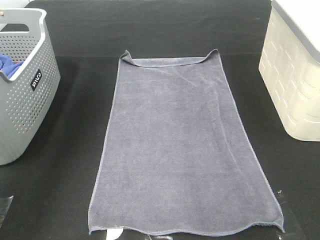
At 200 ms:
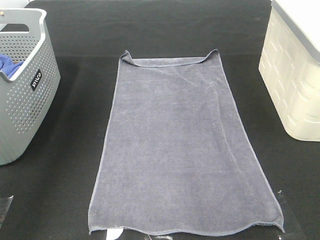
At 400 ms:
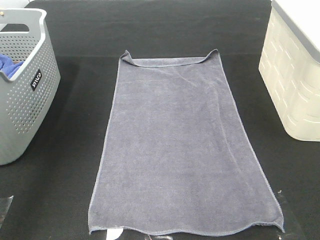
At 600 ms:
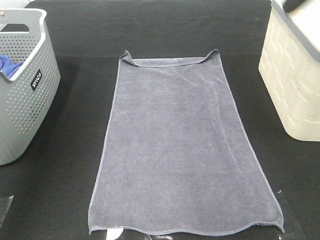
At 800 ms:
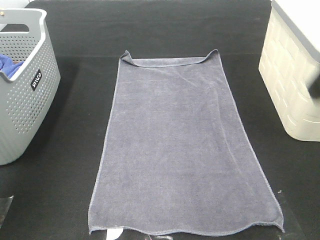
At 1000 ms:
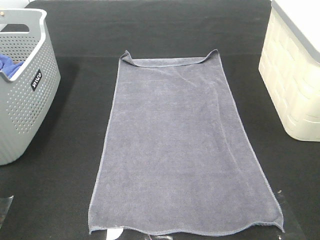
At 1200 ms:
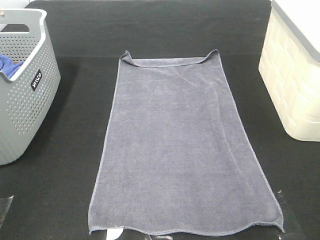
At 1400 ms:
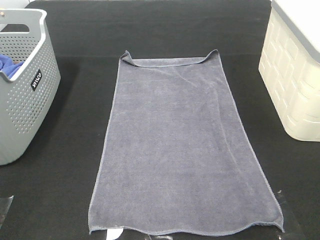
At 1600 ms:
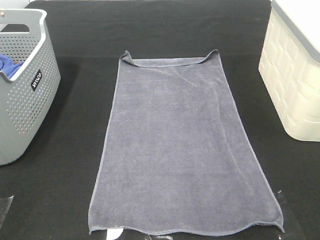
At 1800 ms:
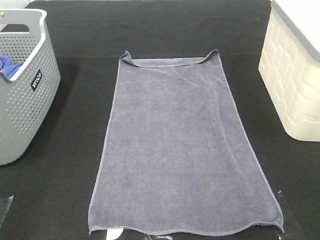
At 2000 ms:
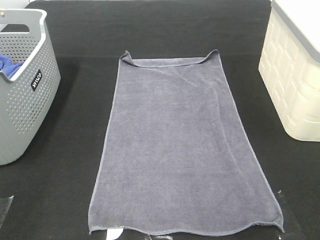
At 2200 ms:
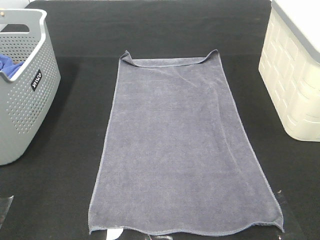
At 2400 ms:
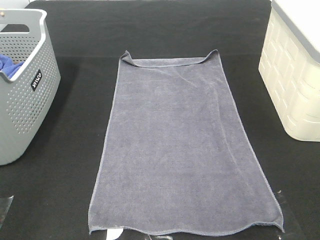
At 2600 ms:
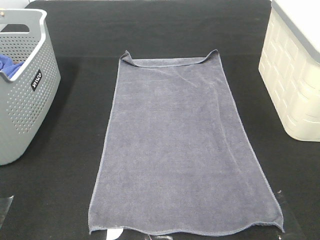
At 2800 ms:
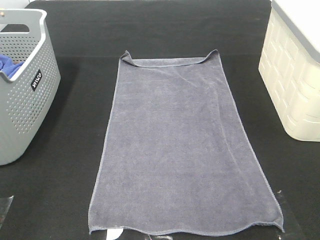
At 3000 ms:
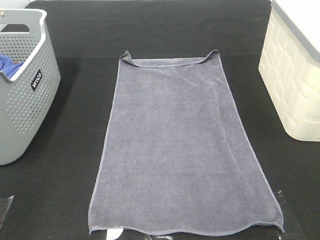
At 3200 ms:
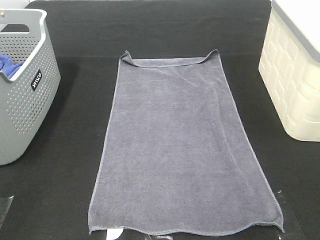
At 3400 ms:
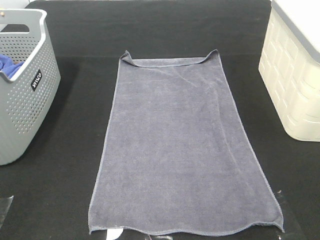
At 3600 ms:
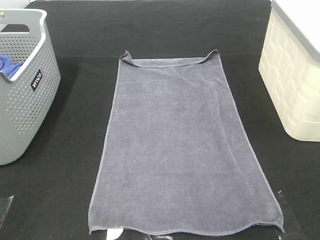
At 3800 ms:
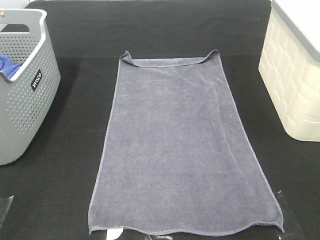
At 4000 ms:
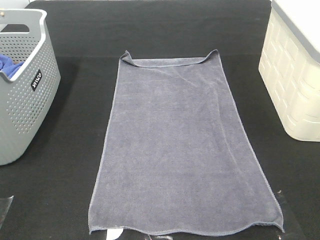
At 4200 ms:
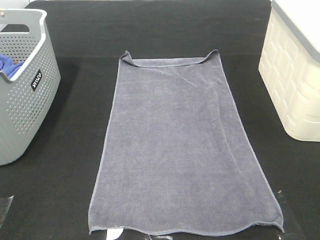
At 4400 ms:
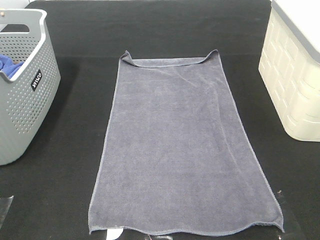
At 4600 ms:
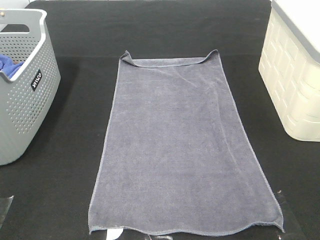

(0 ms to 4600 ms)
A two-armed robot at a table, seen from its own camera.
Task of the whole recording: Remove the towel and place it.
0 ms - 1600 ms: The grippers both shift backward by roughly 35 cm.

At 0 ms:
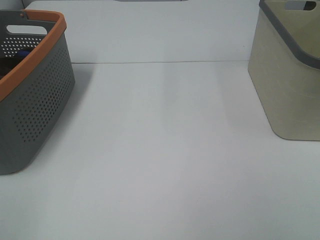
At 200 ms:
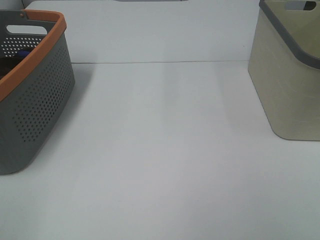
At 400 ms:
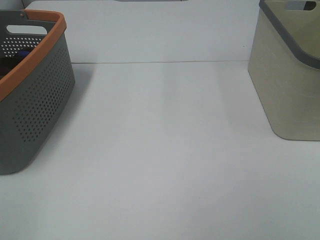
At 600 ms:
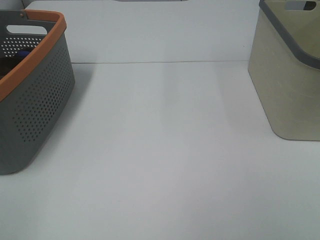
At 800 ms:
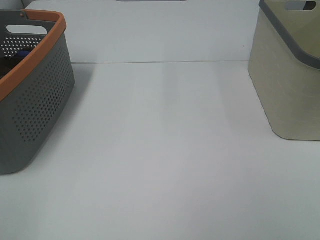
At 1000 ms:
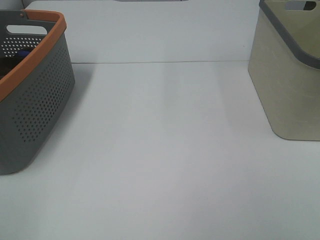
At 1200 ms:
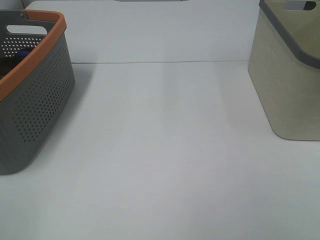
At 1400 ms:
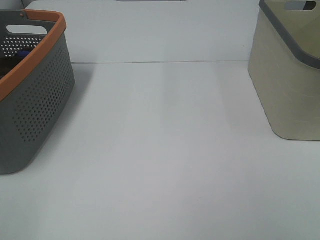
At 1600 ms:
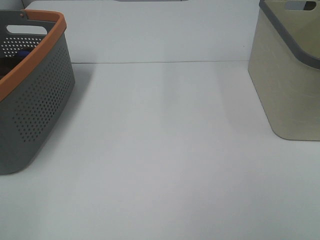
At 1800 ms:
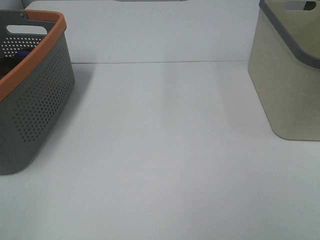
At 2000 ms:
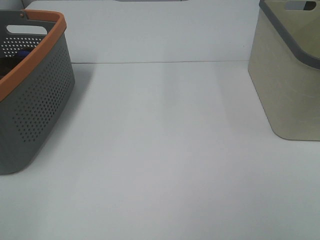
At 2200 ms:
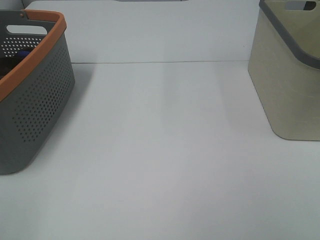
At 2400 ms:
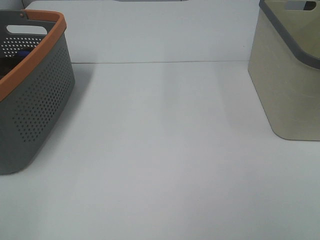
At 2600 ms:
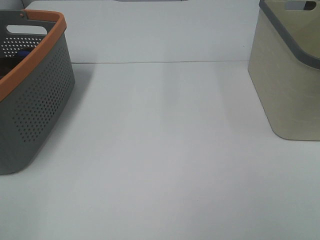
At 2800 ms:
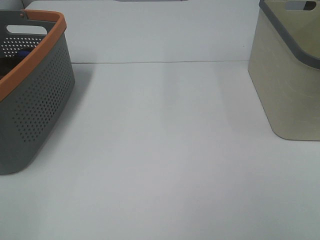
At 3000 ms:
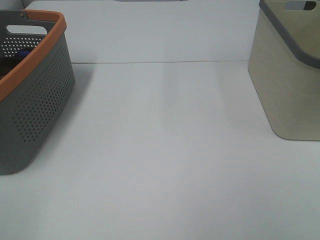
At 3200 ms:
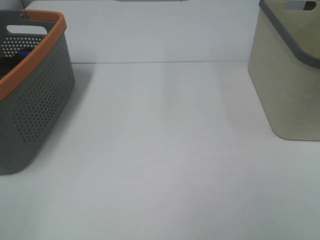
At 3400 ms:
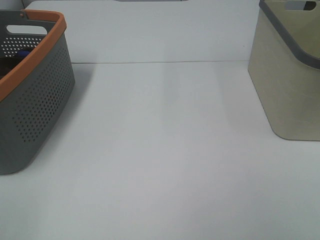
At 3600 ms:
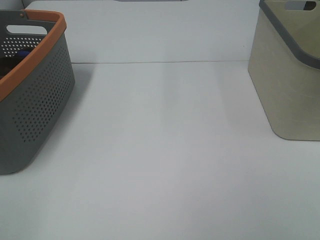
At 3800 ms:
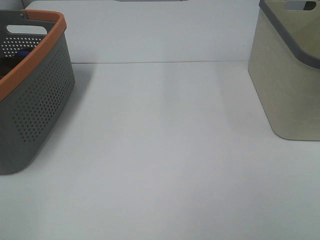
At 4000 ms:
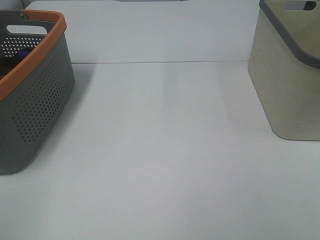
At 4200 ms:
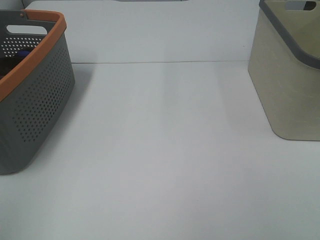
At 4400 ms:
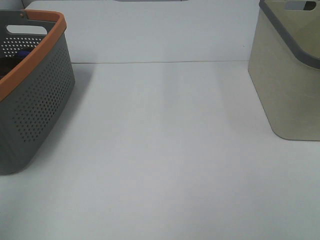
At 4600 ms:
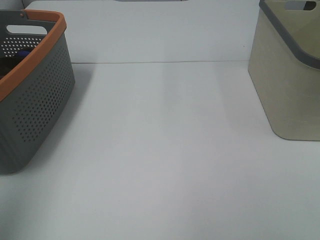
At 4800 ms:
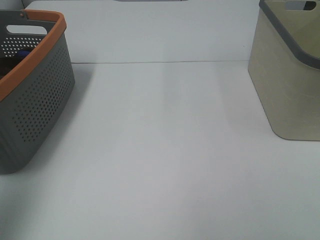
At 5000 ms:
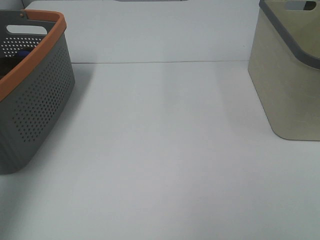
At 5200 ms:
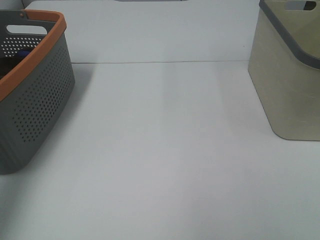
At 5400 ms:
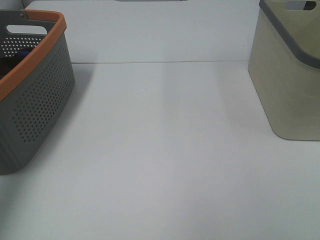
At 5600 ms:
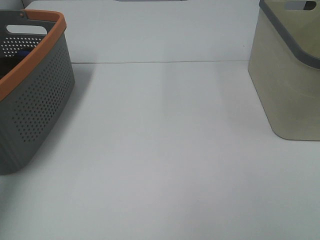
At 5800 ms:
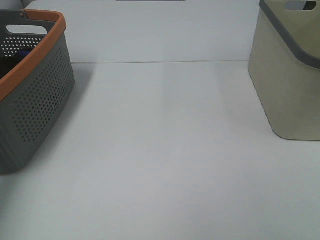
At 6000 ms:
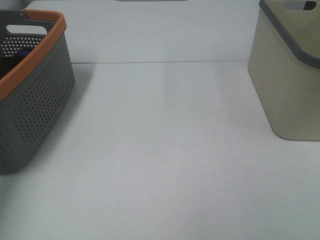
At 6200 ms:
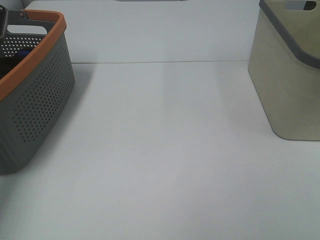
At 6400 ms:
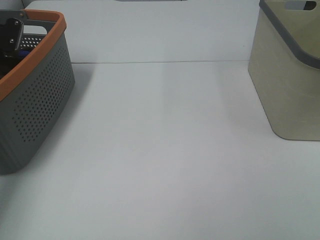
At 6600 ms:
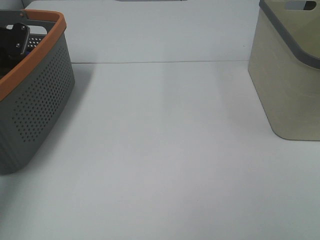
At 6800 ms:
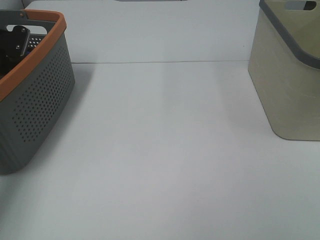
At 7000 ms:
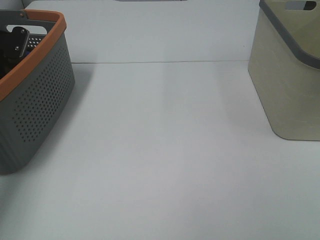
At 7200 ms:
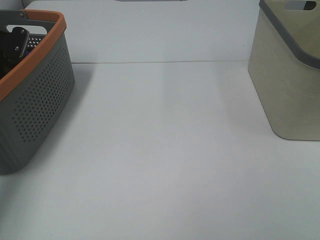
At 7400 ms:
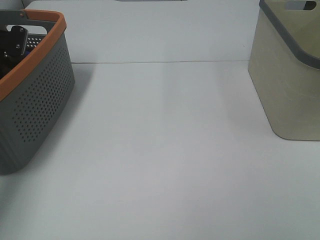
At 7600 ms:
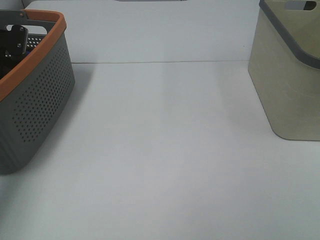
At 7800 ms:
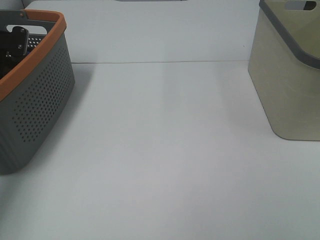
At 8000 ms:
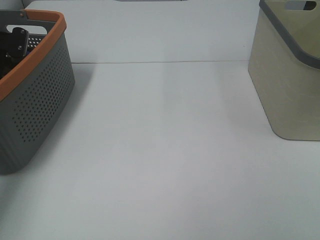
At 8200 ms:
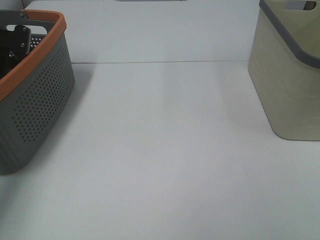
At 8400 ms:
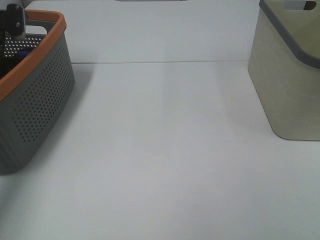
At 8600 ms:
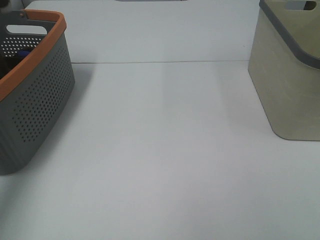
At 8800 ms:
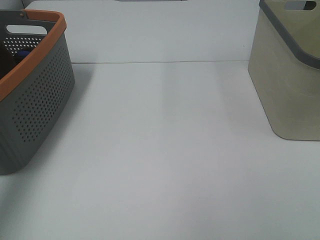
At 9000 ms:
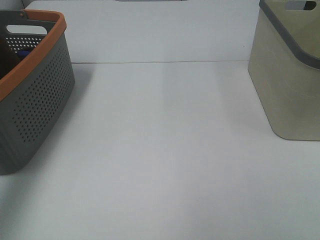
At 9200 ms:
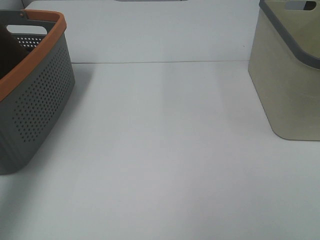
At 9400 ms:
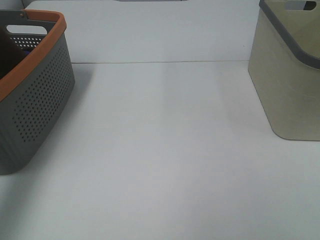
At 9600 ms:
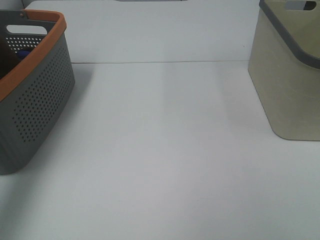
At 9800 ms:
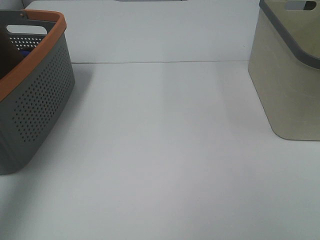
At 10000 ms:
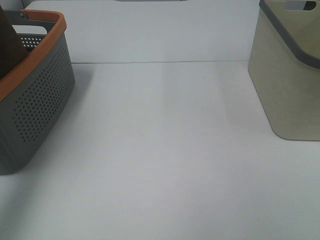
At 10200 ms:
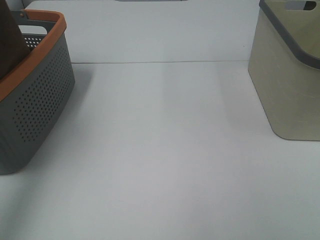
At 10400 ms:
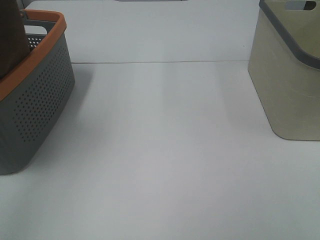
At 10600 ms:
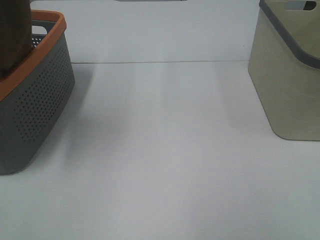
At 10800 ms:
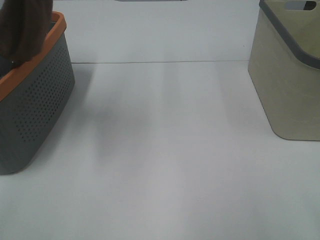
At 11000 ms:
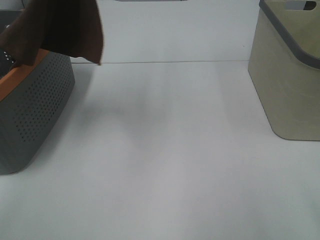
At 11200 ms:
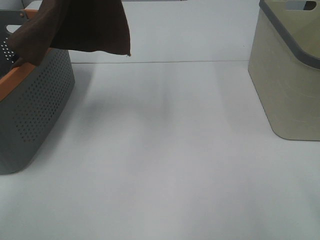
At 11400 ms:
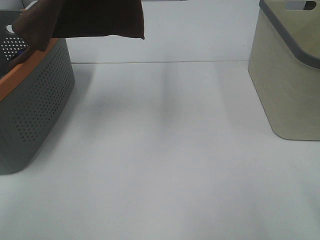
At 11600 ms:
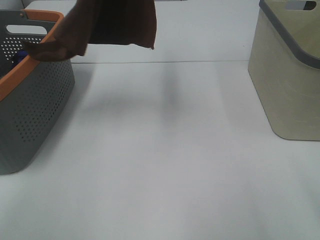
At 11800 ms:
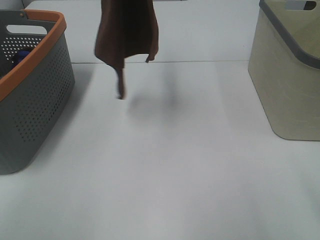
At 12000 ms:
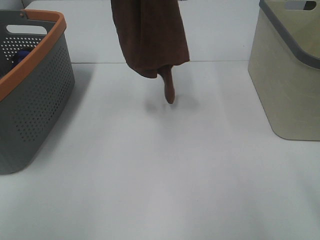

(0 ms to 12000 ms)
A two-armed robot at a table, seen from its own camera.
Task of the whole recording: Remove the towel and place it.
0 ms - 3000 ms: Neither gripper changes place.
6000 ms - 7600 ms: The left gripper travels downward by approximately 5 cm, and closes its fingers.
7600 ms - 9000 ms: The left gripper travels upward and backward by roughly 20 cm, and closes.
9000 ms - 10400 ms: The left gripper heads upward, backward and to the right, covering some 20 cm.
10400 ms - 12000 ms: The right gripper moves forward, approximately 10 cm; the left gripper goes about 20 cm to the right and forward.

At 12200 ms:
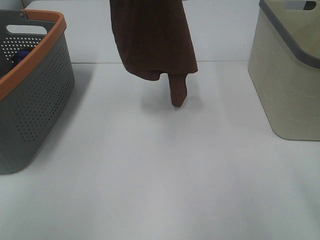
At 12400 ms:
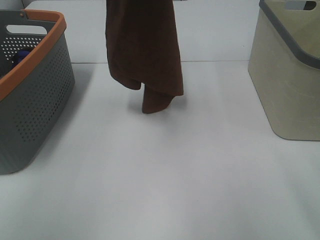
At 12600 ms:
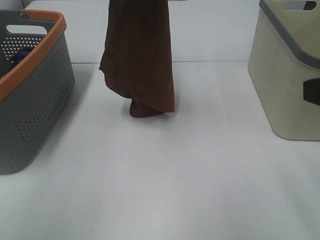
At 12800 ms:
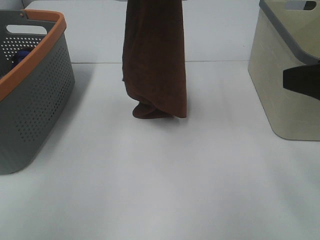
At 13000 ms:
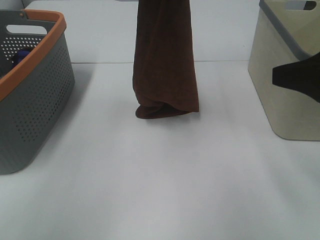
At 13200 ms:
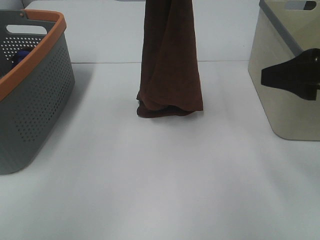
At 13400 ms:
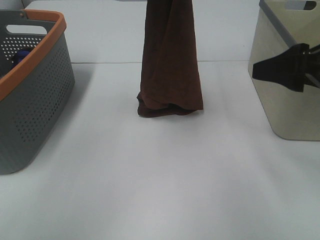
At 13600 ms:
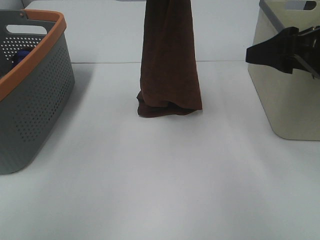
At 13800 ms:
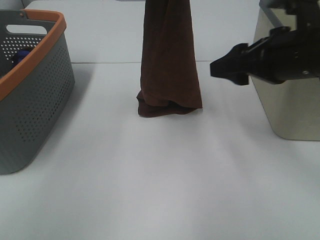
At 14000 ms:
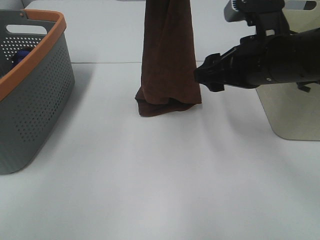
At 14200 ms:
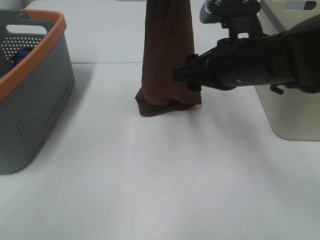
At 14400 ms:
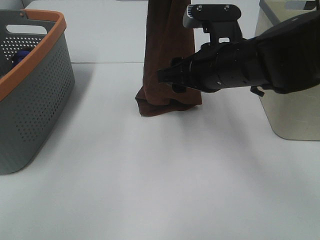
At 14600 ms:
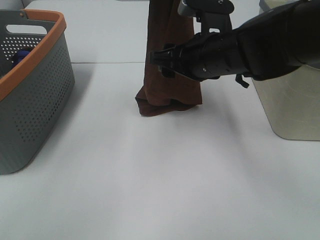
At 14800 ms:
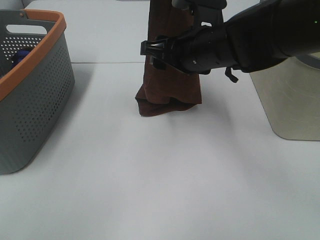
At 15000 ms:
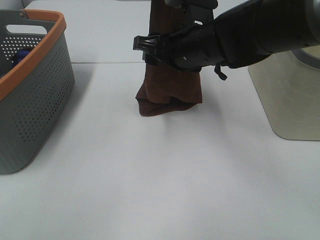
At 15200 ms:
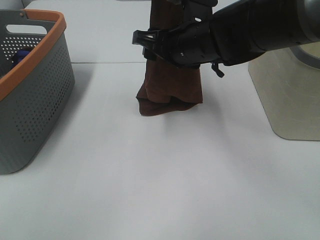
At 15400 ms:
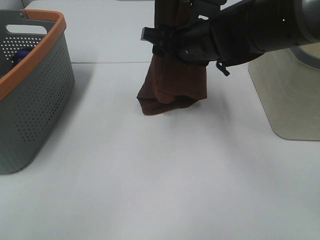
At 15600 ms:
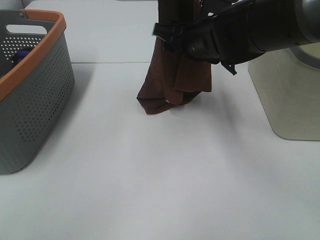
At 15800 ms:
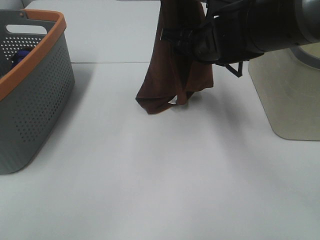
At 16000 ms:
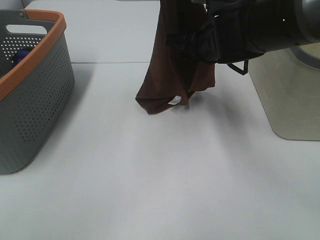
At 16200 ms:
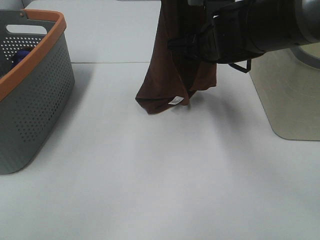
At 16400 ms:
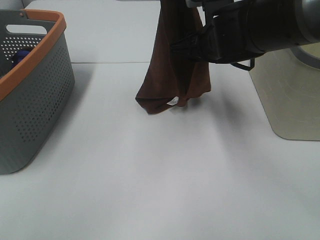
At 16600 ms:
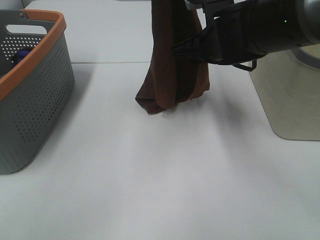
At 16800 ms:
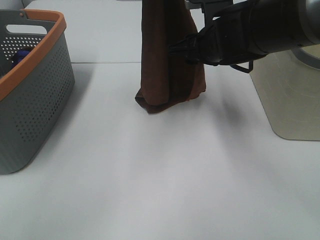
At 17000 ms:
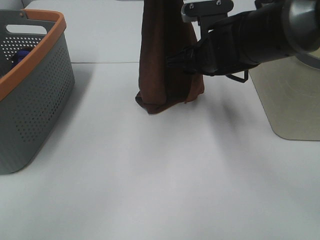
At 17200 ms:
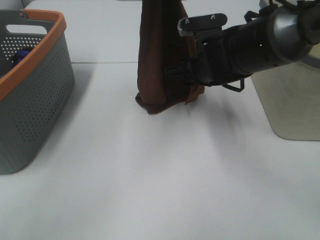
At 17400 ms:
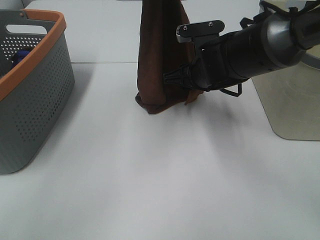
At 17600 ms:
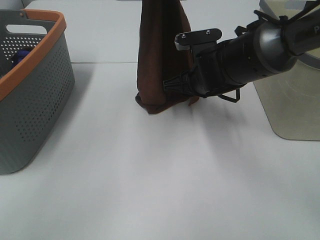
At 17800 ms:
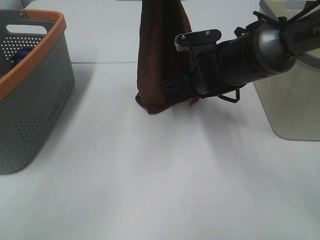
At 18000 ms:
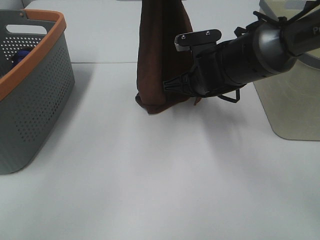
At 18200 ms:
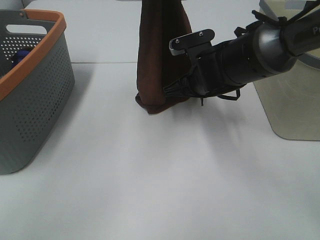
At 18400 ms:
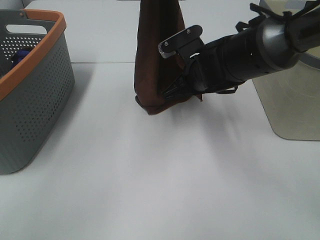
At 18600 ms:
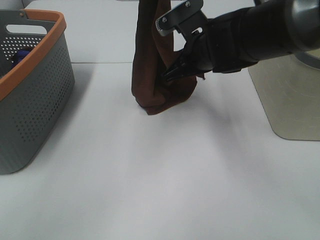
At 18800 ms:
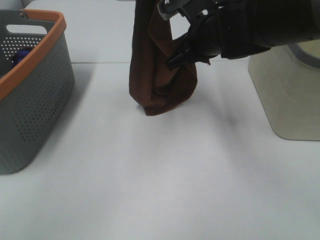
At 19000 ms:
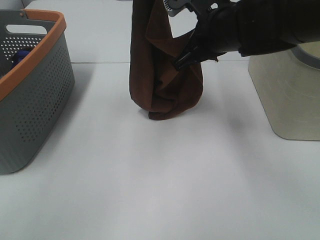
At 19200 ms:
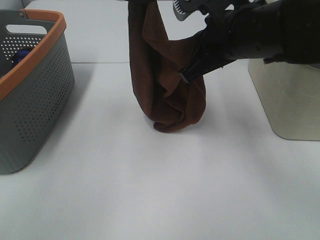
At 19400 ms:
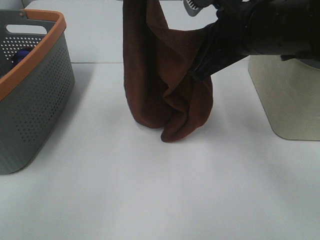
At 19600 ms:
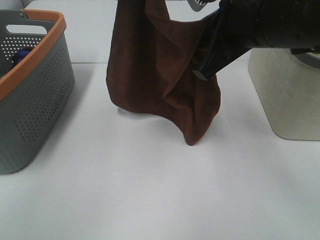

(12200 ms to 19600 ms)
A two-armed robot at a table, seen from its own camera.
Task of the whole recording: Remove the towel and place it.
Step, 12200 ms - 17400 ms: Right hand: grab a corner of the brown towel and straighten it.
12200 ms - 13600 ms: The left gripper is displaced downward and to the right by about 10 cm, while the right gripper moves forward and downward, some 15 cm.
13600 ms - 15200 ms: The right gripper heads to the left and forward, covering approximately 20 cm.
16600 ms - 18200 ms: The right gripper goes some 5 cm downward, and closes.
18200 ms - 19600 ms: The right gripper is displaced upward and backward by roughly 20 cm; the left gripper changes place by some 5 cm.